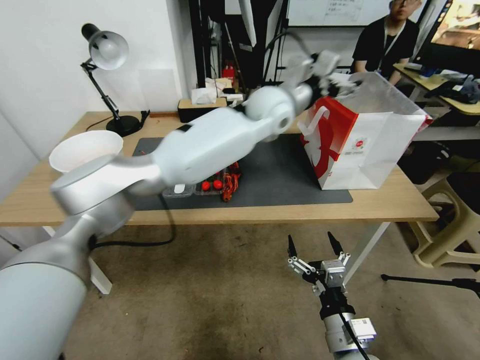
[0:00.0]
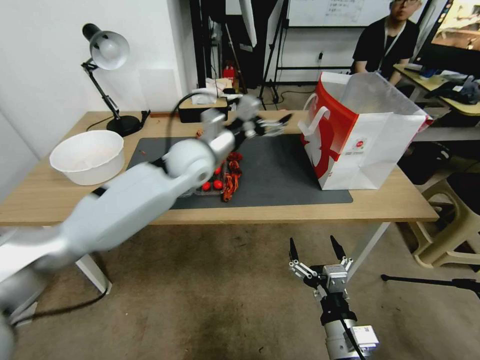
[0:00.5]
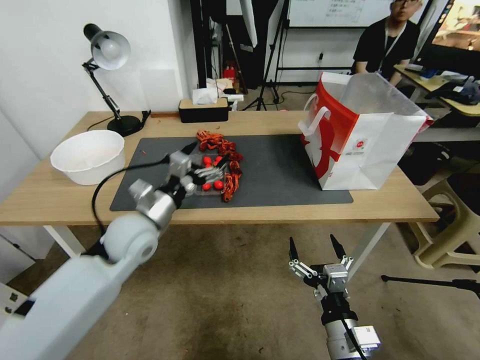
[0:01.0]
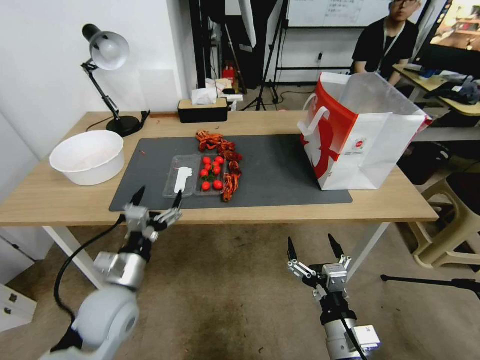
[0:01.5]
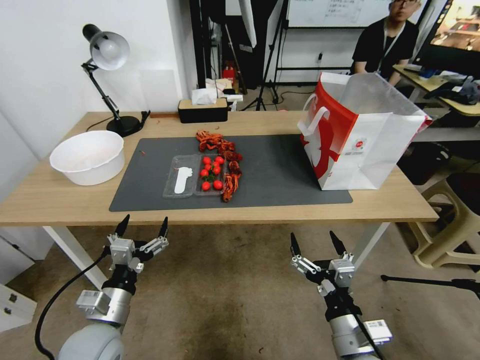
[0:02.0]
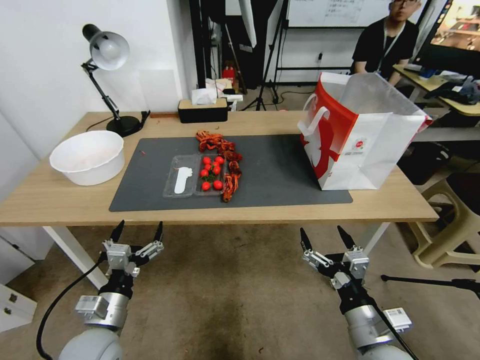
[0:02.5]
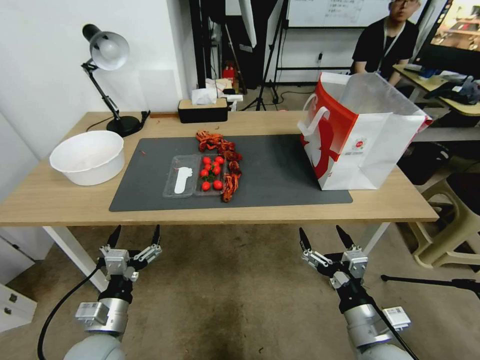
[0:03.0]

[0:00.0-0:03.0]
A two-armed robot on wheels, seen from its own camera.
0:00.0 to 0:01.5: The left gripper moves to the left, backward and downward, about 50 cm.
0:01.5 to 0:03.0: The right gripper changes place by some 5 cm. Meanwhile the left gripper travels backward and downward by approximately 10 cm.
